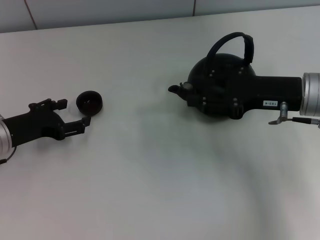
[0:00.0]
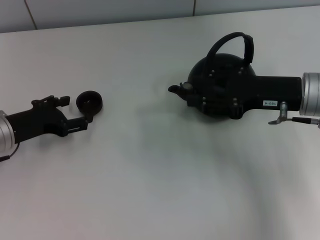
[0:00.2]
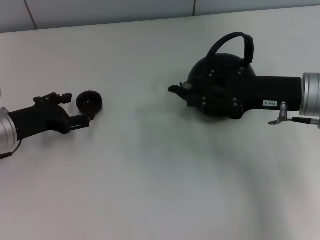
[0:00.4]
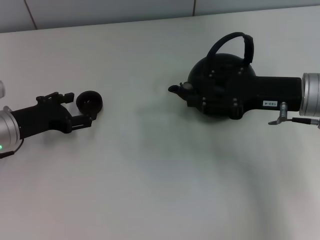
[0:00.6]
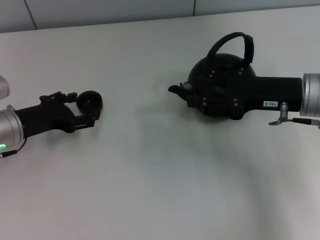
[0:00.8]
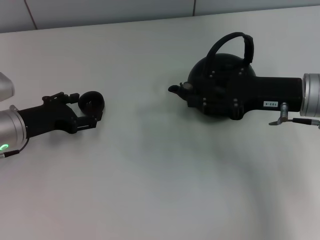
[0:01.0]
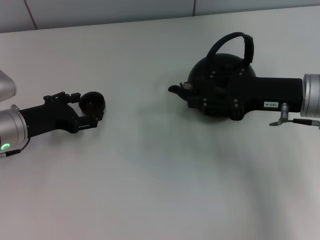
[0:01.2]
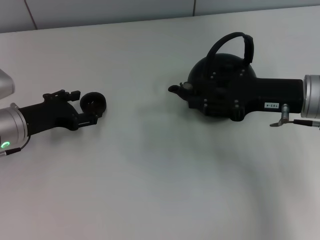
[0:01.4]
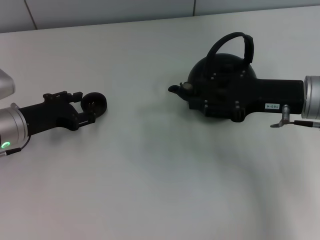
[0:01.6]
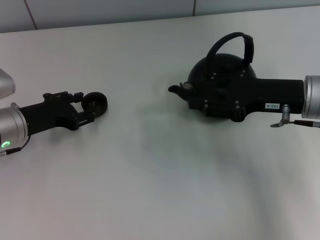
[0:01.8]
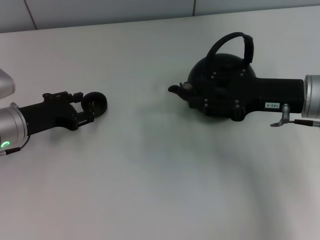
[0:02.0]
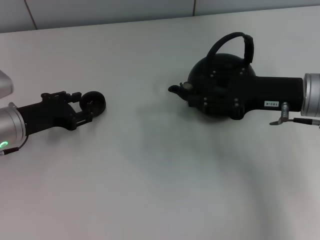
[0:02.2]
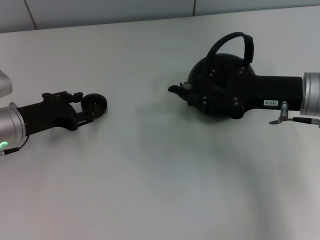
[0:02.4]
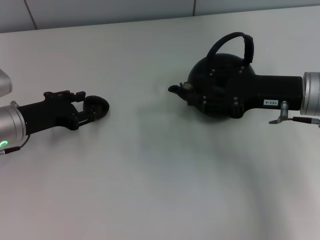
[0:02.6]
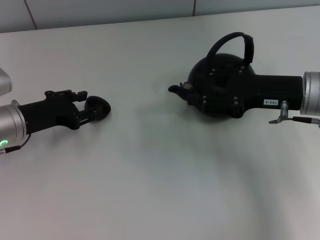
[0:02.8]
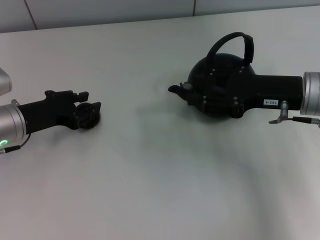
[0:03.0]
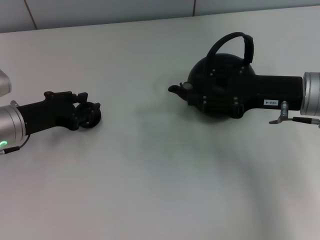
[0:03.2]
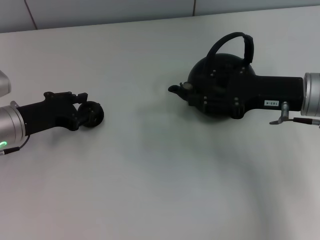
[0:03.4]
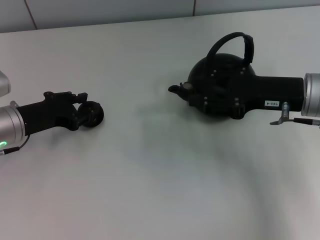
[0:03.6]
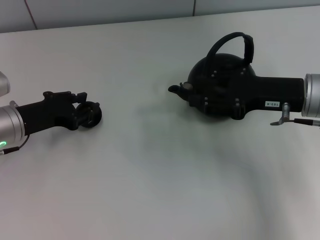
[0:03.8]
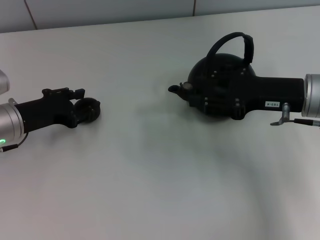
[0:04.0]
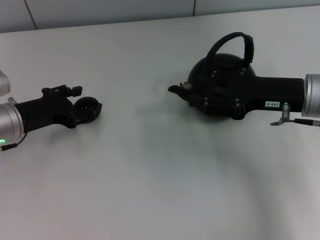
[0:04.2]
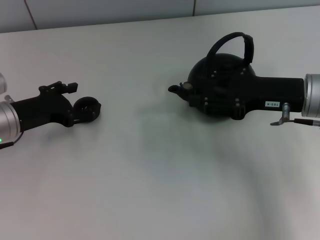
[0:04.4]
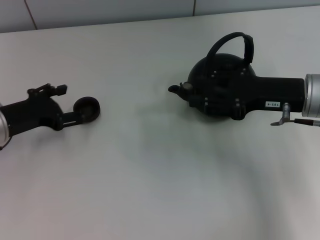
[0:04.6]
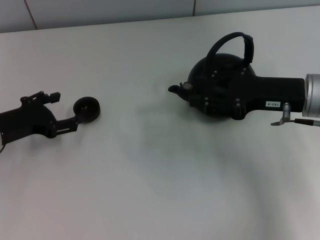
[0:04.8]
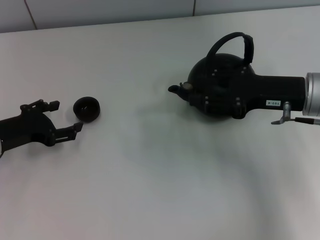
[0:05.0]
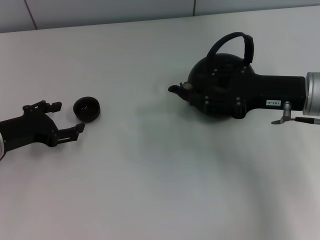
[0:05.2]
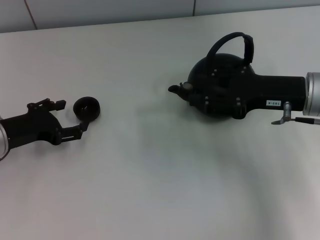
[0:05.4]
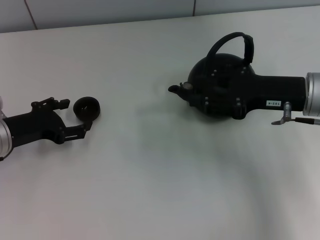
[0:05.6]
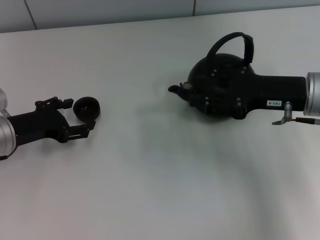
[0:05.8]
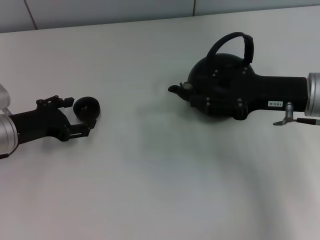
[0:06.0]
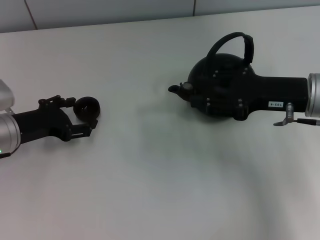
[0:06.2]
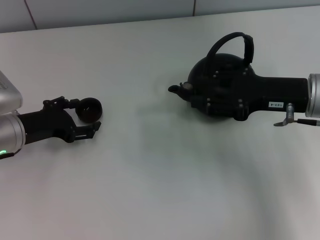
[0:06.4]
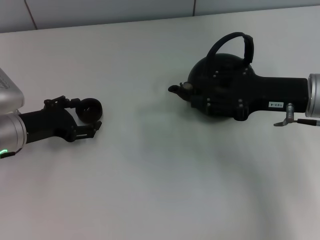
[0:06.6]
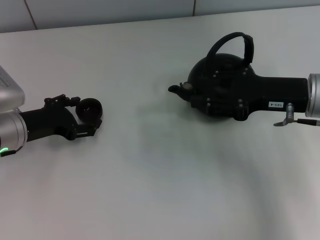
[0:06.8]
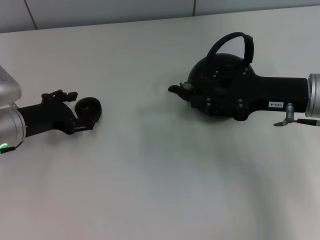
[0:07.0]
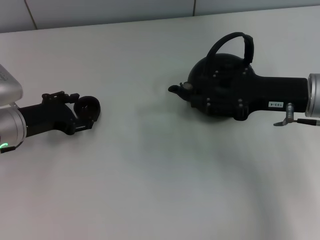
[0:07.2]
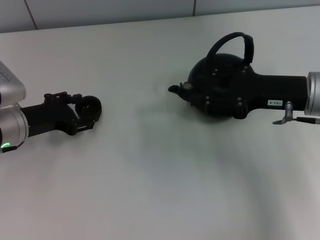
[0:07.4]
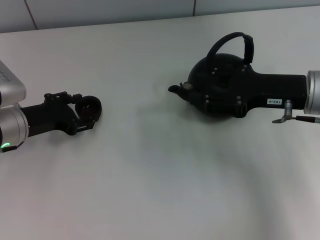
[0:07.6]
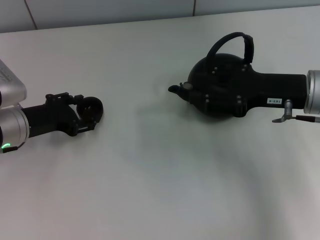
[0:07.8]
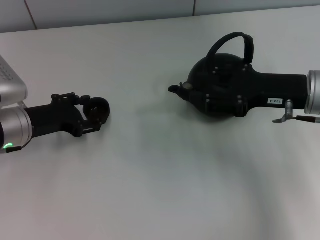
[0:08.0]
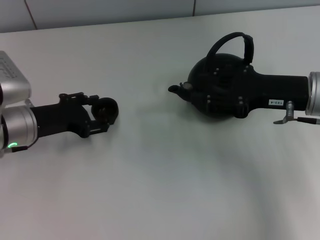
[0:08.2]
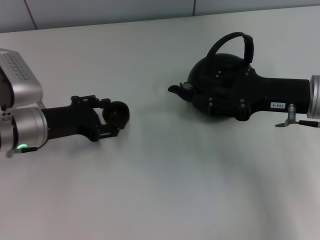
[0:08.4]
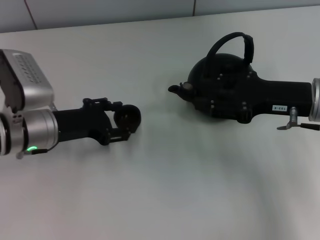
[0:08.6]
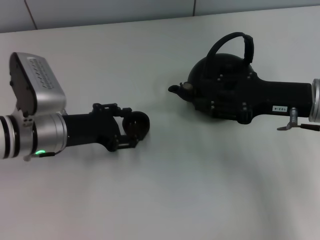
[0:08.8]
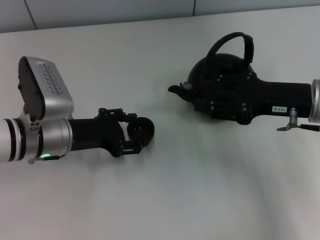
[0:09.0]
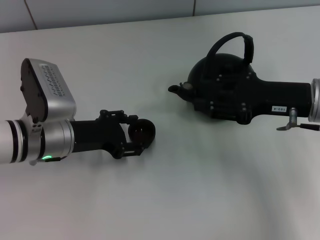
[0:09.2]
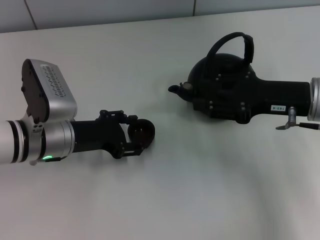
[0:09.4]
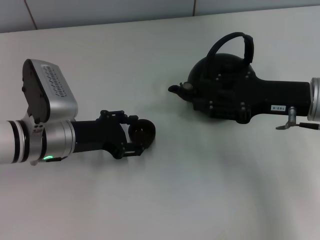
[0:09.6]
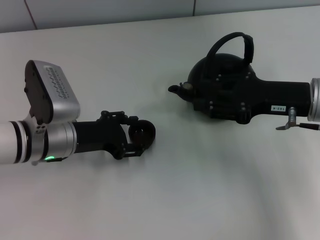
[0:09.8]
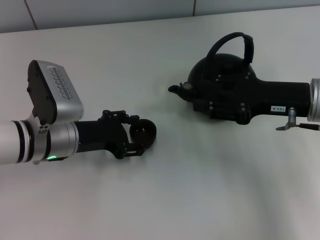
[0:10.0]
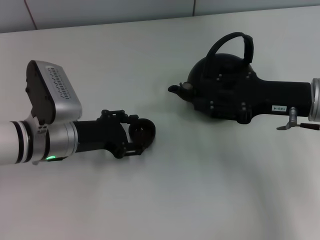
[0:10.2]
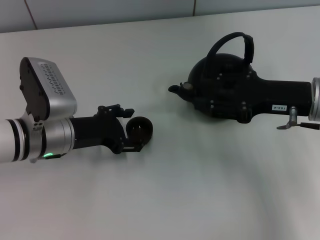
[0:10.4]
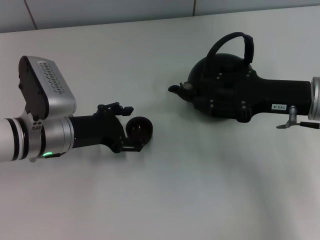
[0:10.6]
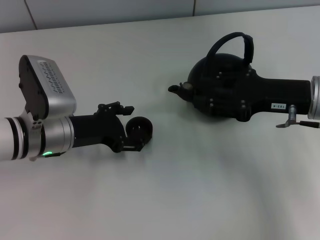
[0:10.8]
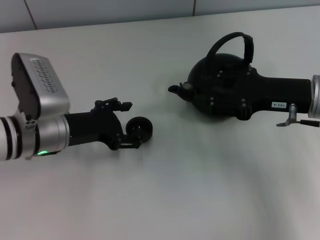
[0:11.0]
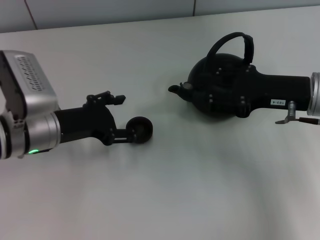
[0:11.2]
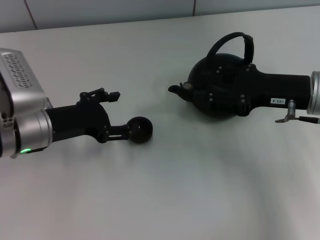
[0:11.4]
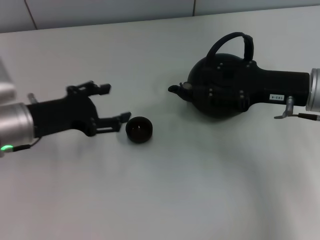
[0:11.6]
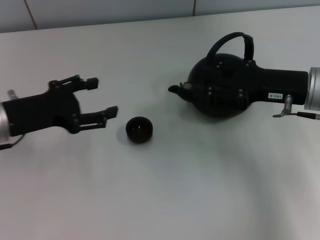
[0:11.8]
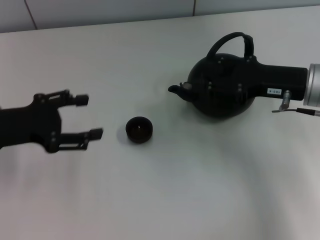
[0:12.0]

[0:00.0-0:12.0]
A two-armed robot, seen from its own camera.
Task of the whole recording: Grasp the handle of the teapot with one hand and pour tea into the teacup.
Step, 0:00.0 to 0:08.4: Pick up the teacup with the left gripper.
0:00.0 to 0:01.6: The grippers make only small movements.
0:01.6 to 0:03.0: The left gripper closes up.
0:03.0 to 0:04.4: The left gripper opens.
0:04.4 to 0:06.0: The grippers move only a little.
0:06.0 to 0:07.6: The left gripper closes.
0:07.6 to 0:09.0: The left gripper goes some 5 cm to the right.
0:09.0 to 0:10.4: The two grippers keep their place.
0:10.4 to 0:12.0: The left gripper goes some 10 cm to the left and upward, and opens.

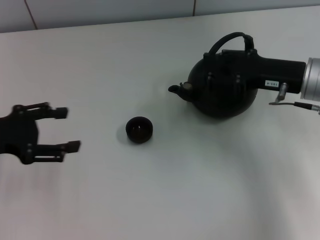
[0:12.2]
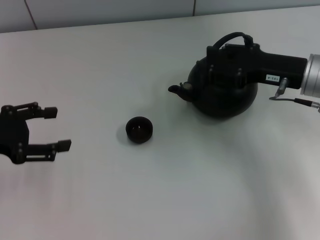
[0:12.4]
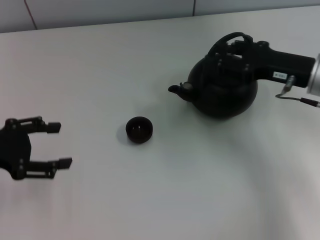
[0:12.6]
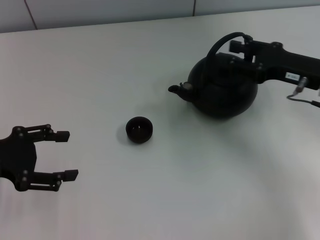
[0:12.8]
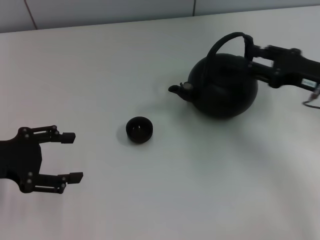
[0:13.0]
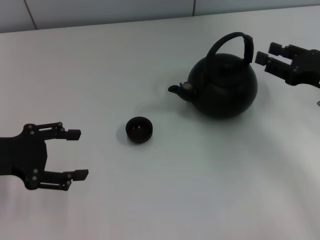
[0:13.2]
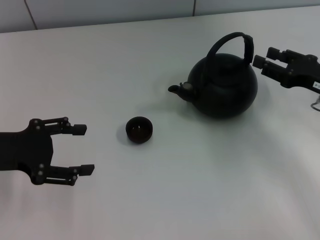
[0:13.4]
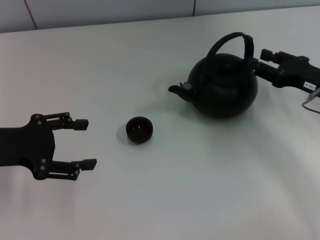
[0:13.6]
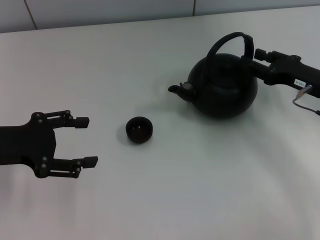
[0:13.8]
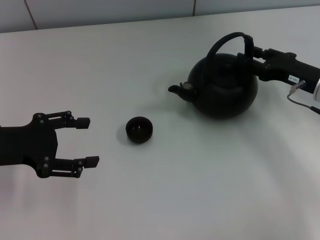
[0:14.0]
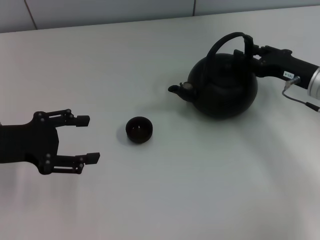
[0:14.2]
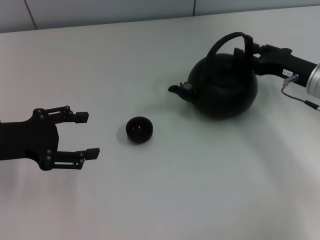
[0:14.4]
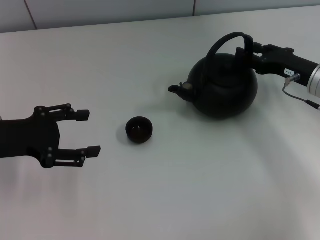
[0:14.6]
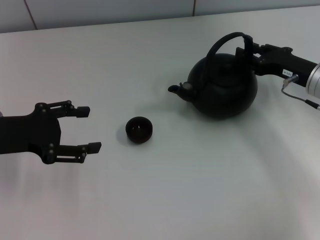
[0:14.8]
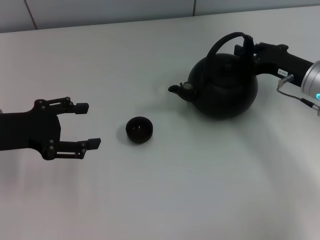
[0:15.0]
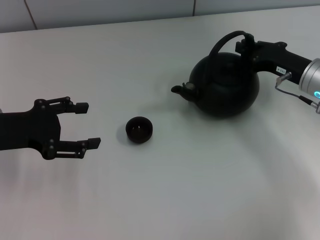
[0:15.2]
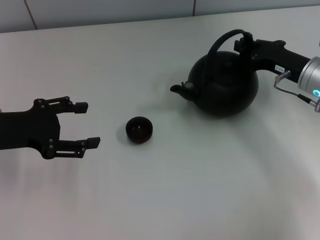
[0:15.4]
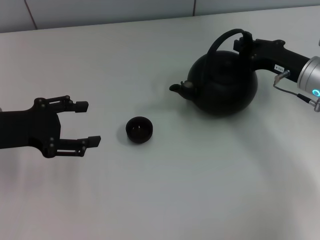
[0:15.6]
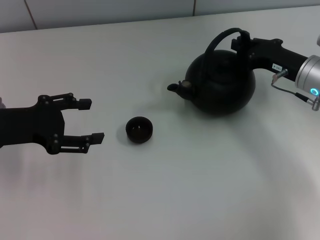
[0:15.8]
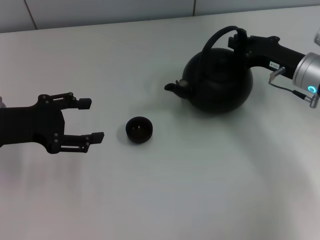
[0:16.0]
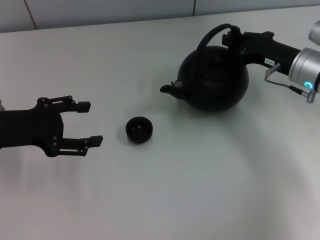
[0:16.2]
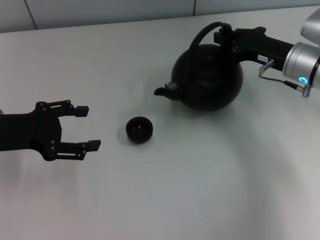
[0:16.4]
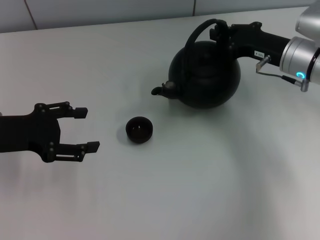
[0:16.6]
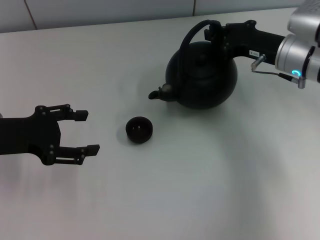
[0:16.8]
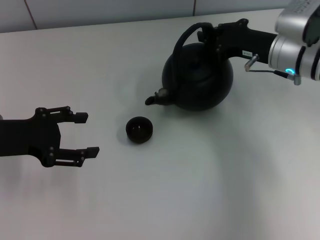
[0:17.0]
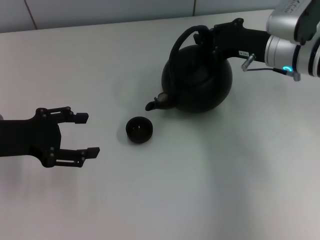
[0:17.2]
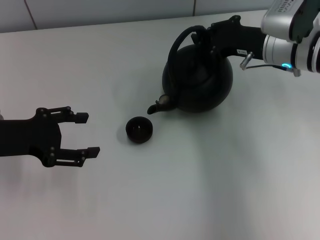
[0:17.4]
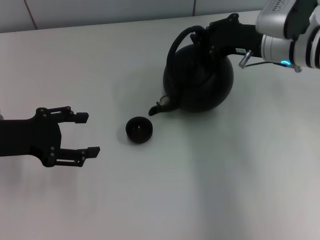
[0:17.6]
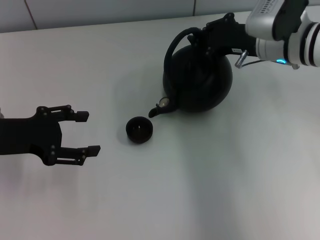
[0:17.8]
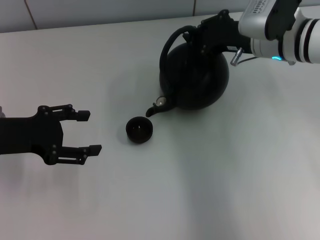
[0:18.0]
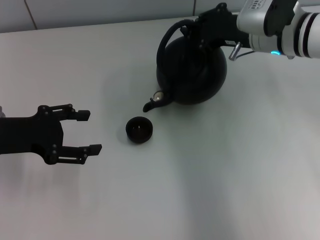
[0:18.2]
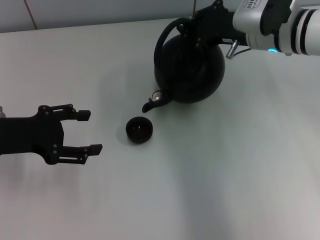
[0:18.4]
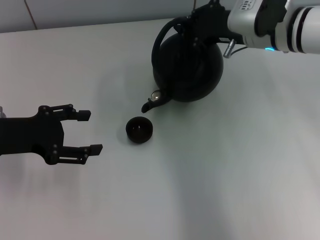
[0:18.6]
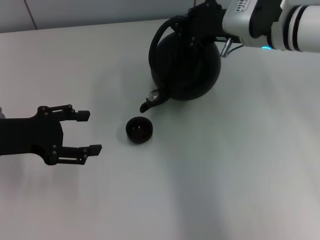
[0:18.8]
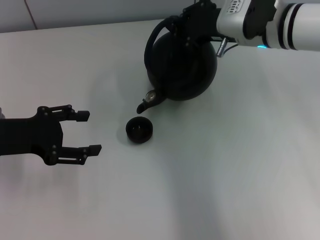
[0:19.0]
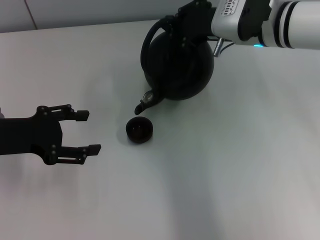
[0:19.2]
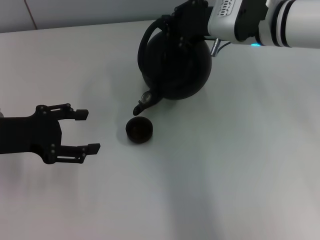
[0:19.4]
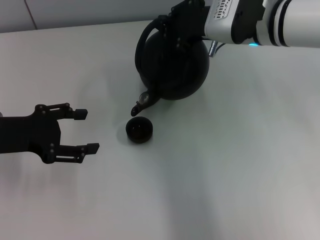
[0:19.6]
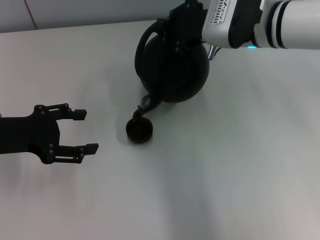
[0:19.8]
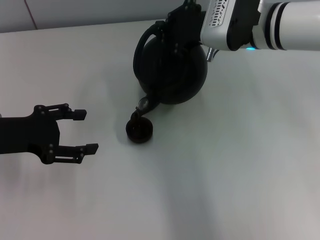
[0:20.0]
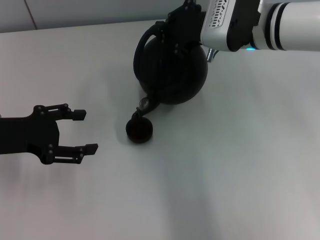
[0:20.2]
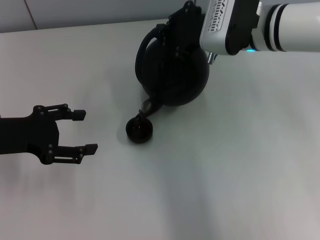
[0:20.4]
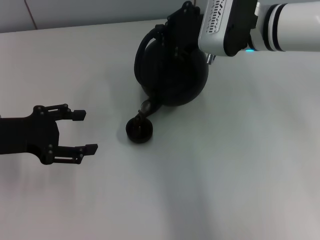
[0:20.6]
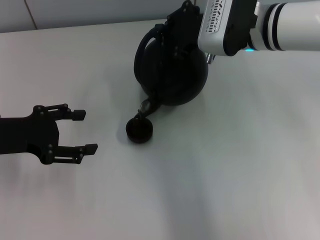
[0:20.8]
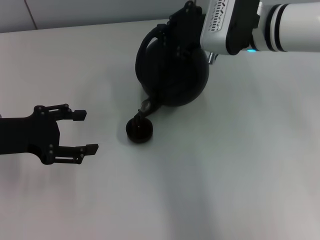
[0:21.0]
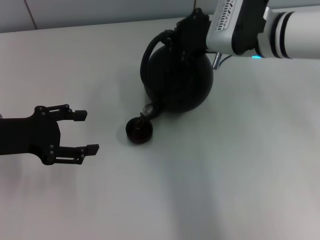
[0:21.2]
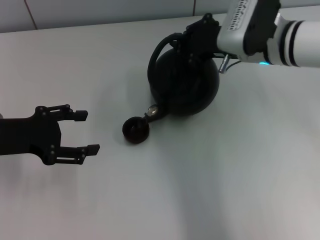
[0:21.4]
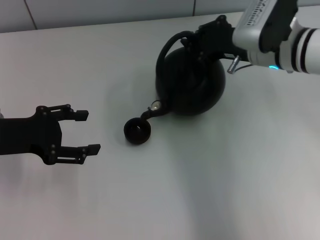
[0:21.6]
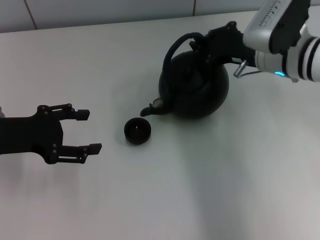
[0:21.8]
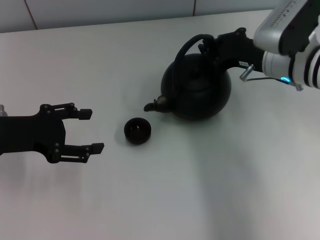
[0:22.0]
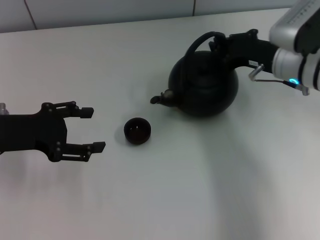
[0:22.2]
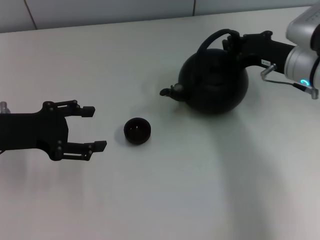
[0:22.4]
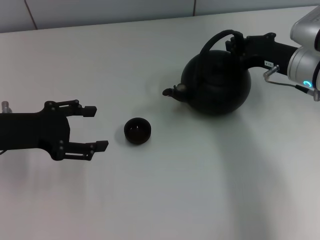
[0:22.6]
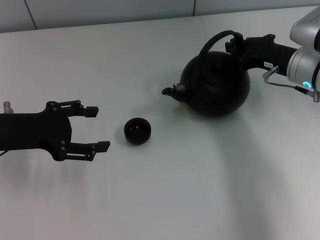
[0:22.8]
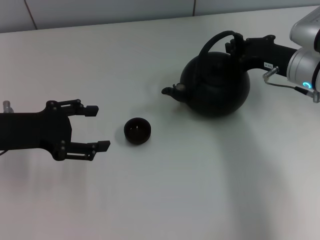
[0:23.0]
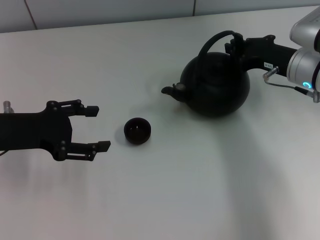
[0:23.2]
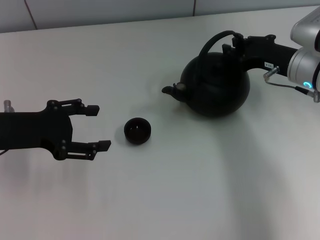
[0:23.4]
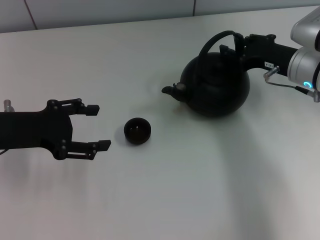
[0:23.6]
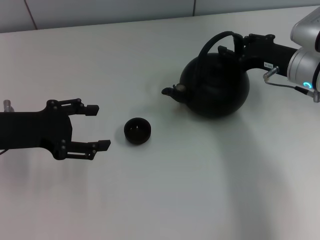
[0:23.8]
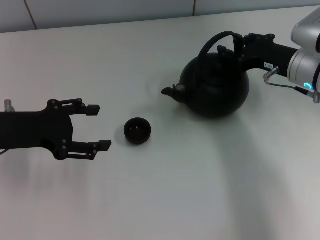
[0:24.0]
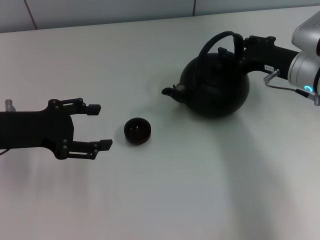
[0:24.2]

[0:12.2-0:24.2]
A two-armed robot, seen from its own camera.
Task of the whole recording: Grasp the handle of the teapot with one hand and pour tea into the teacup.
Step, 0:12.6 to 0:16.4: Pick up the teapot with the right gripper.
0:12.2 to 0:13.8: The right gripper heads downward, covering about 5 cm.
0:13.8 to 0:15.2: The right gripper closes its fingers.
0:15.2 to 0:16.6: The right gripper moves some 5 cm, and closes its fingers.
0:16.6 to 0:18.2: The right gripper shifts some 5 cm to the left.
0:18.2 to 0:21.2: The grippers make only small movements.
0:21.2 to 0:22.6: The right gripper heads to the right and downward, covering approximately 10 cm.
0:22.6 to 0:24.2: The right gripper opens up.
